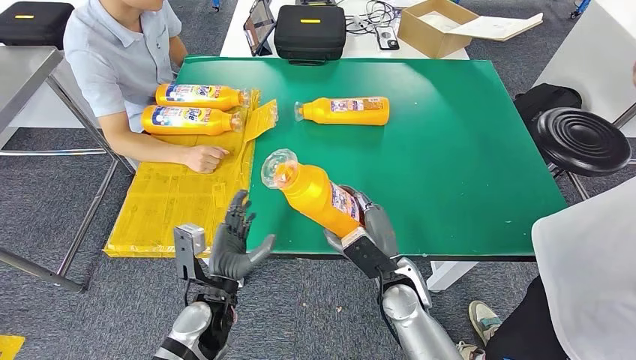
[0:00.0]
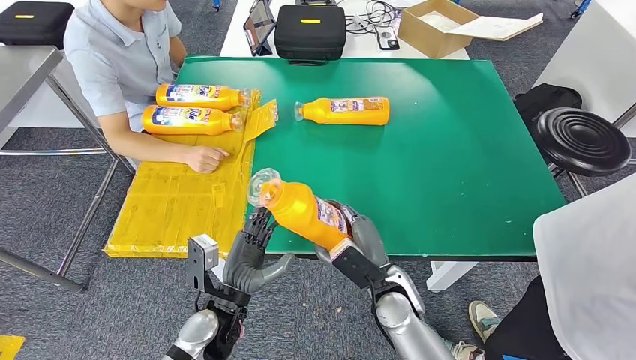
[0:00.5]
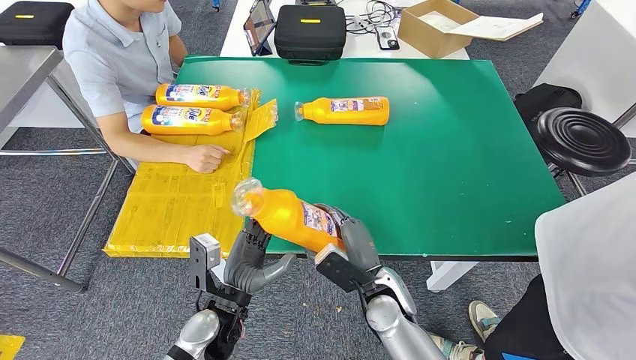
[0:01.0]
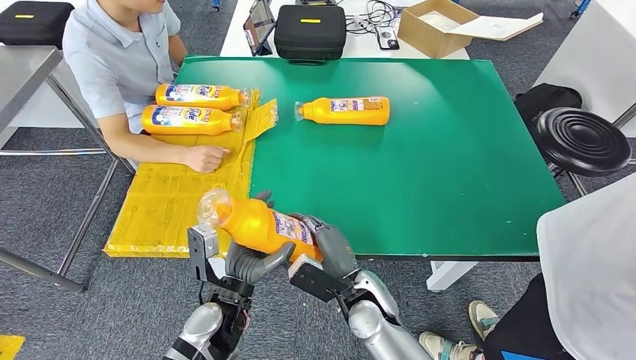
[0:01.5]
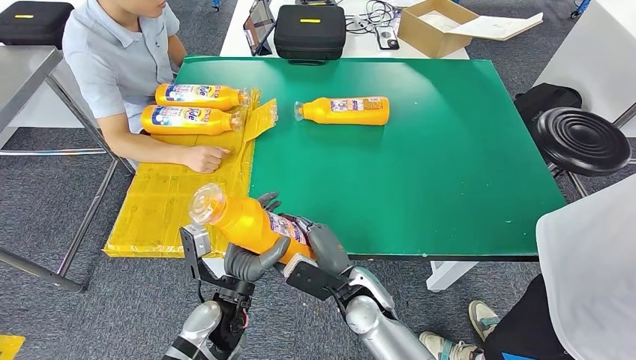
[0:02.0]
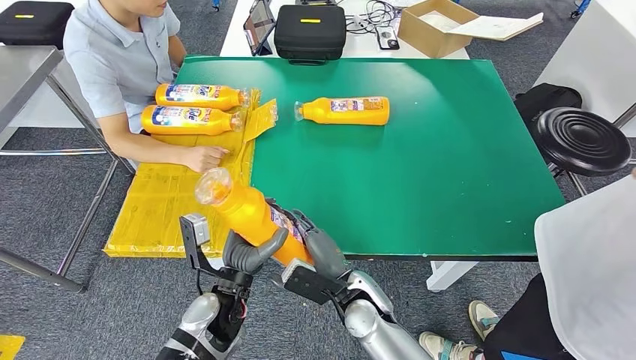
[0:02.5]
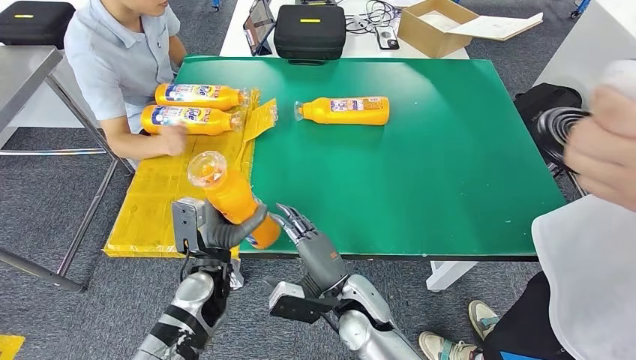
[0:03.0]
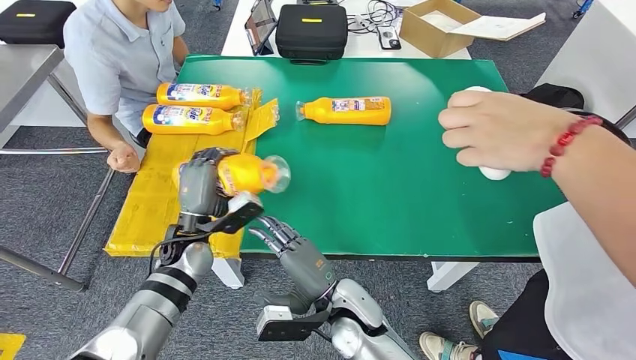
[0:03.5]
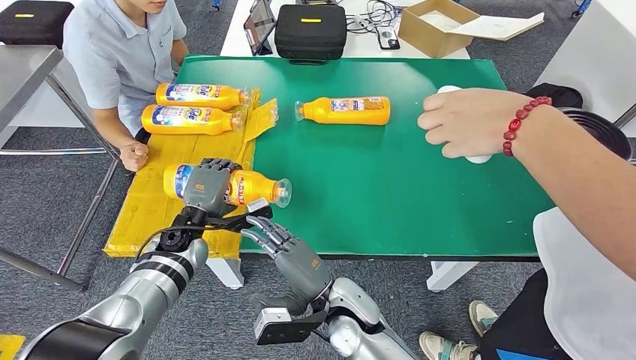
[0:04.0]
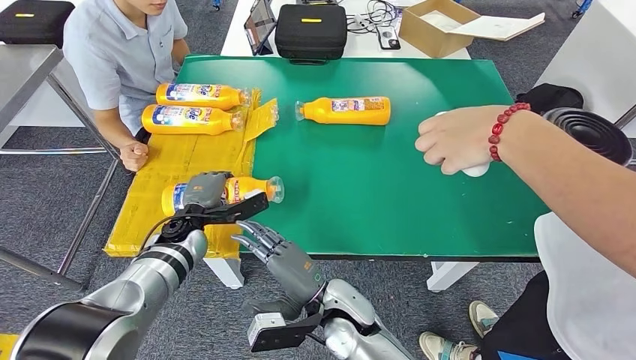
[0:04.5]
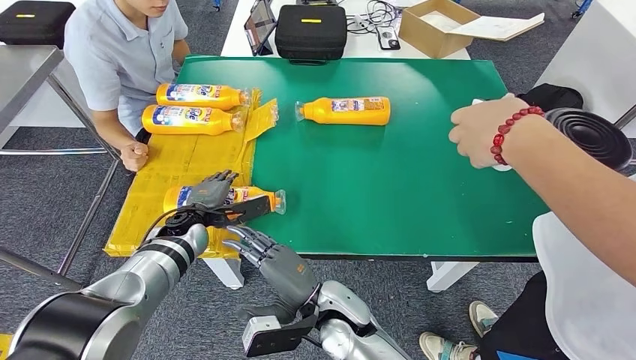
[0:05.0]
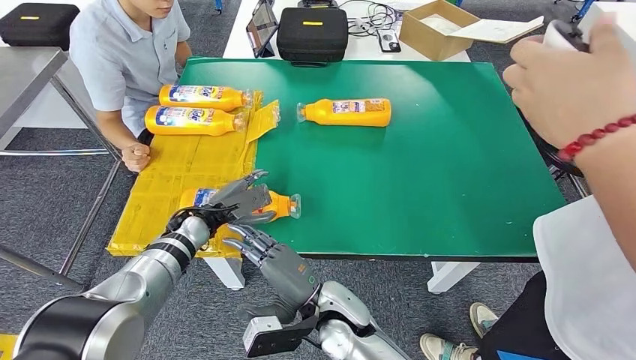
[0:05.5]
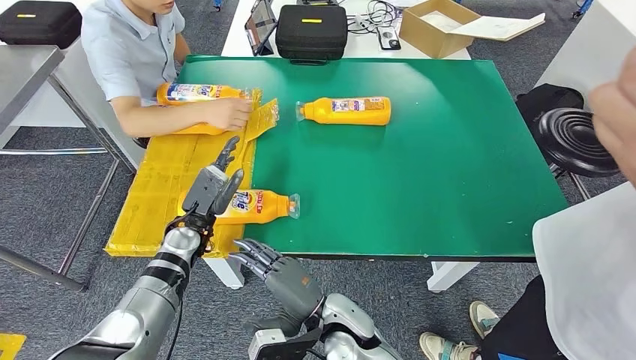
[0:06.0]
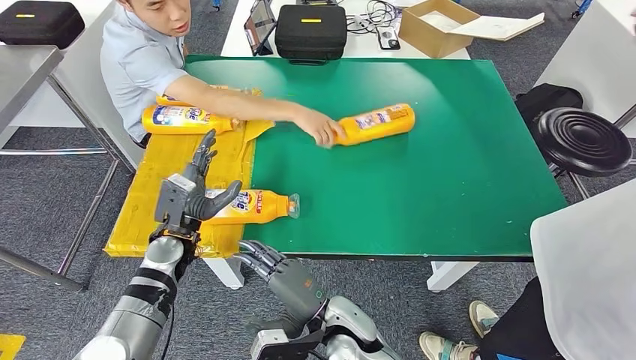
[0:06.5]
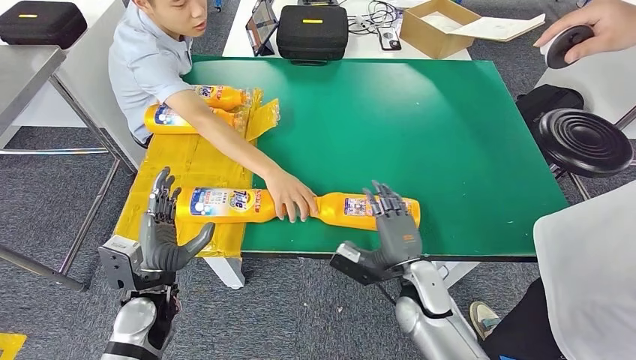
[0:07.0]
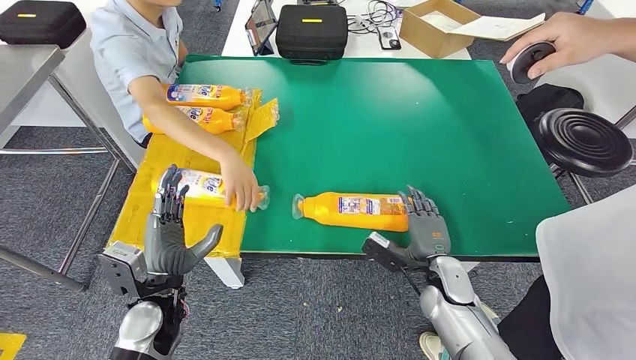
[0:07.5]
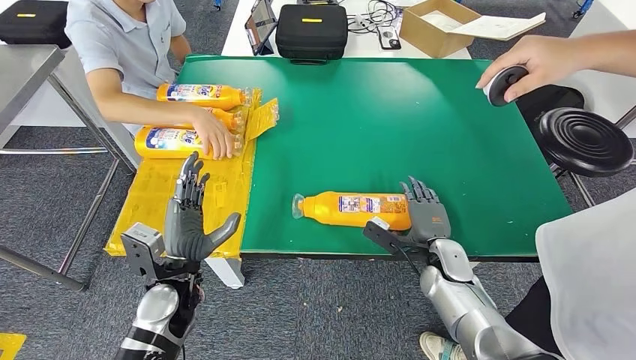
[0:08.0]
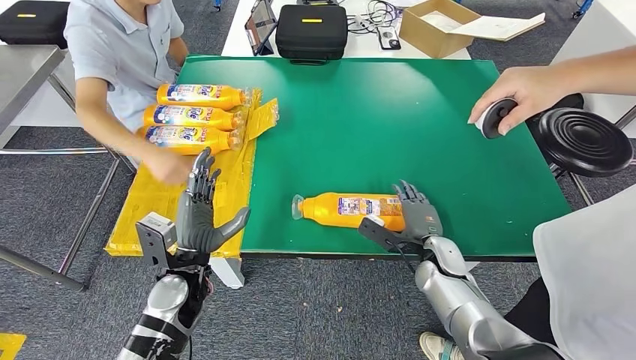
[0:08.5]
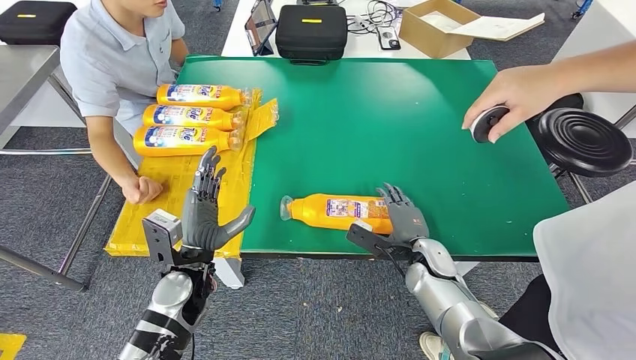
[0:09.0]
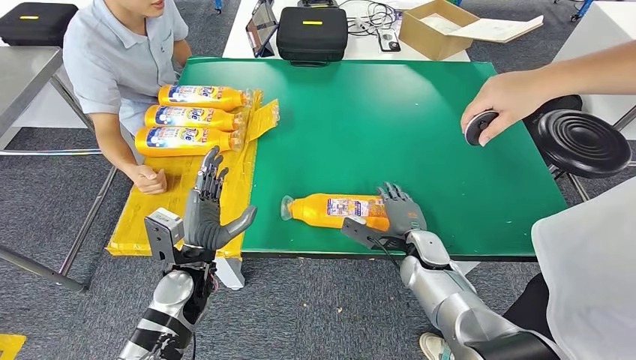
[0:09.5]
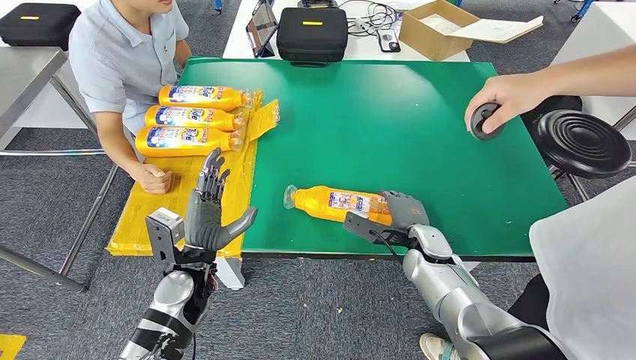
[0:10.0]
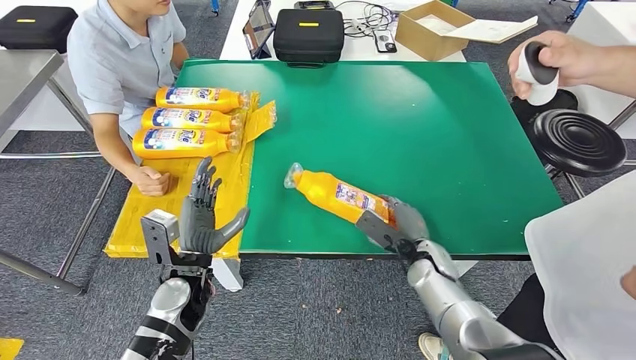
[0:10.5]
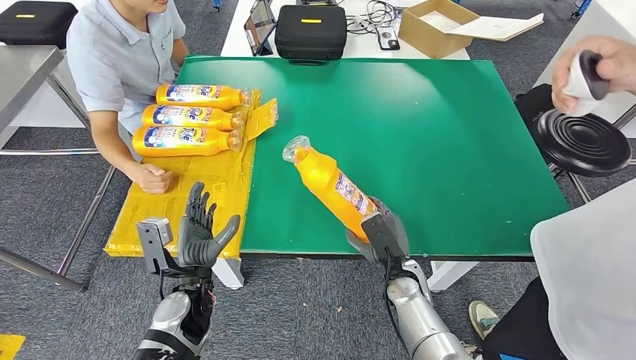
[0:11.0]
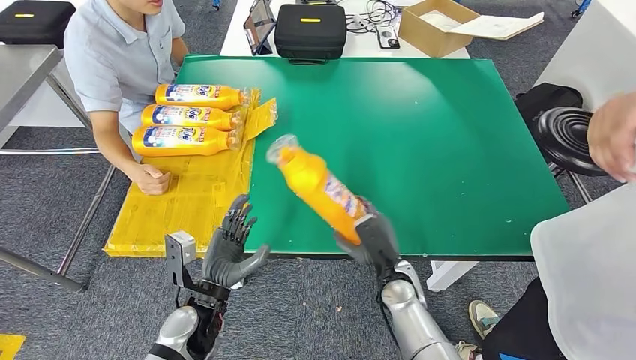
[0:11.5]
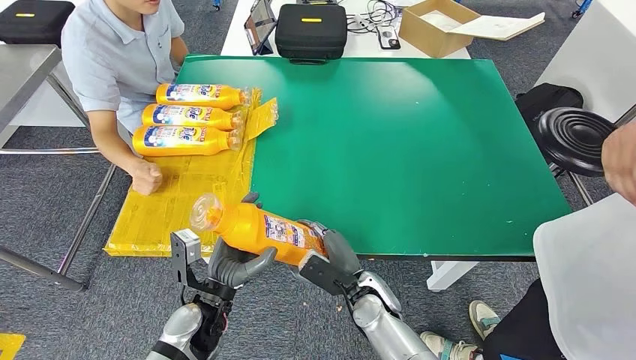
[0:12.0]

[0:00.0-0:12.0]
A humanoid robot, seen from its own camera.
Step, 0:00.0 to 0:04.0: Flip the fast-moving consumer goods bottle to the front side.
Step, 0:04.5 to 0:11.5: Pick up the fast-moving consumer goods bottle from the table.
0:00.0 to 0:02.0: The right hand shifts approximately 5 cm to the left.

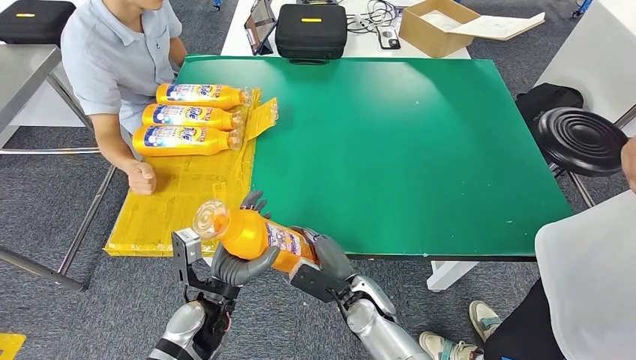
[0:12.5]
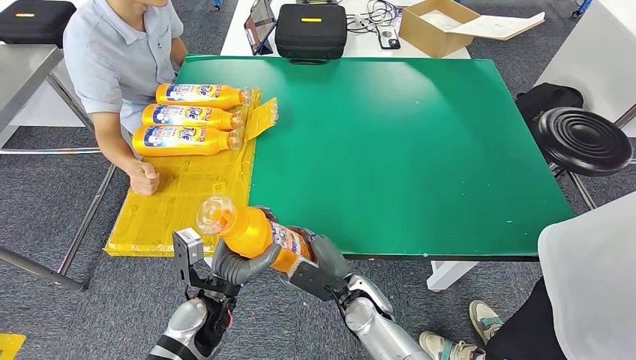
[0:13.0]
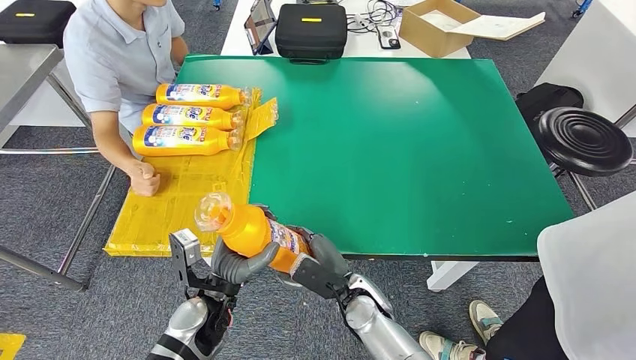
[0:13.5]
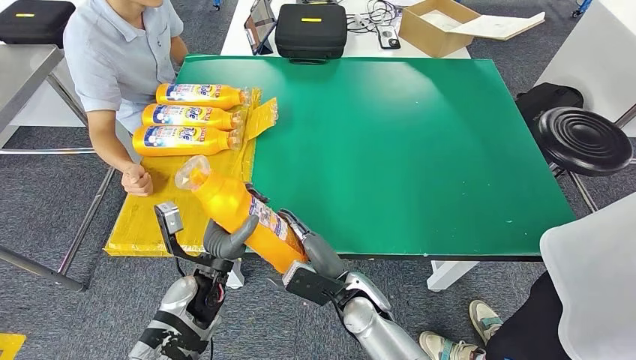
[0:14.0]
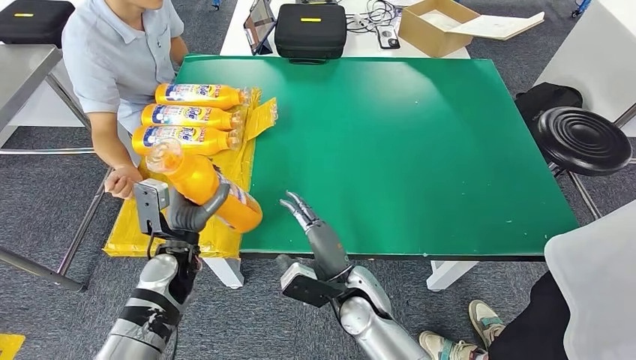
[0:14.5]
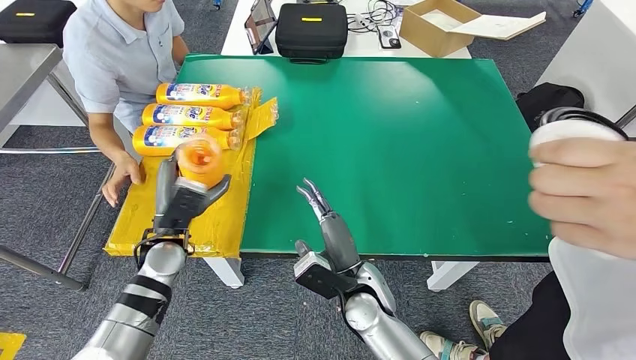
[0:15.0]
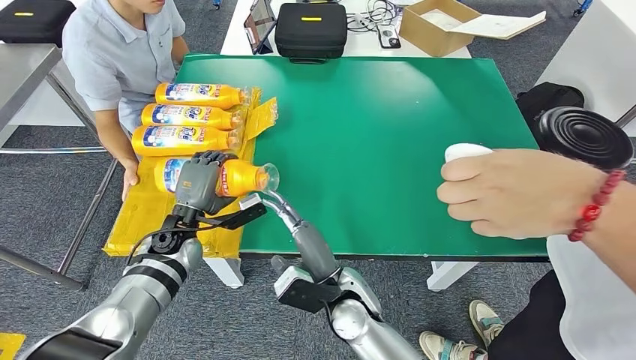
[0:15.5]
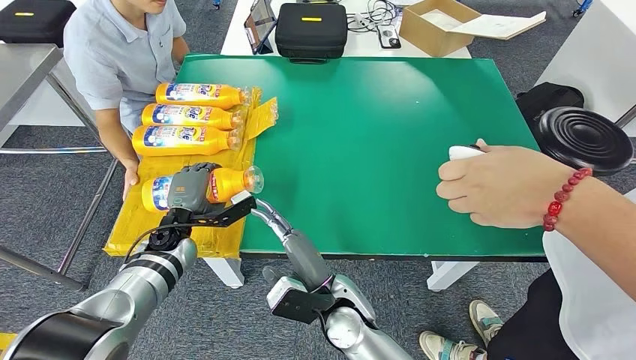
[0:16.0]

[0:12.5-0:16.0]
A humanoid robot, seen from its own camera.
Step, 0:12.5 to 0:16.0: Flip the fast-moving consumer goods bottle to the front side.
0:12.5 to 0:14.5: The left hand goes roughly 10 cm forward and to the left.
